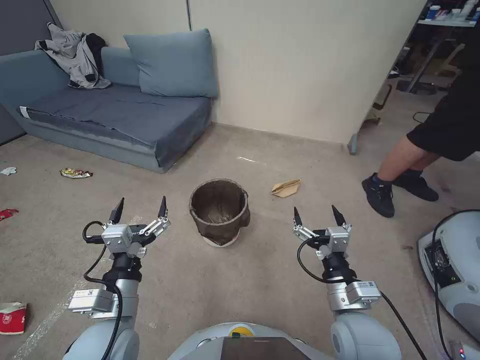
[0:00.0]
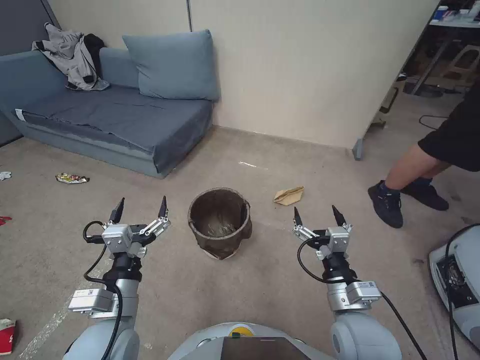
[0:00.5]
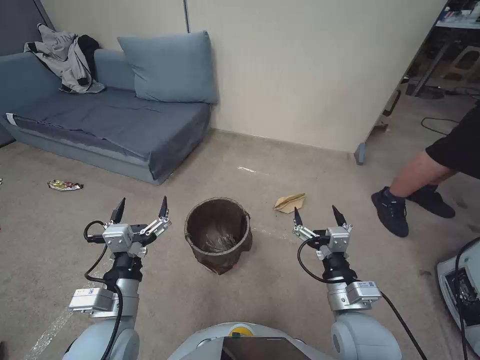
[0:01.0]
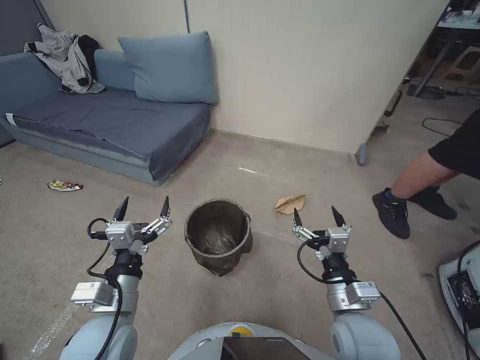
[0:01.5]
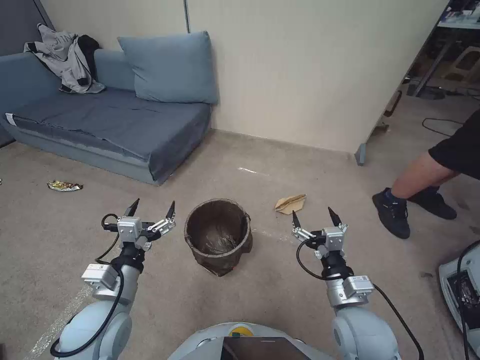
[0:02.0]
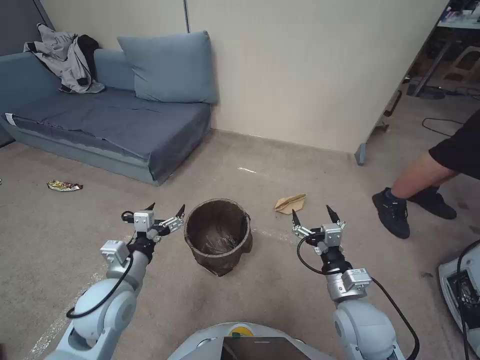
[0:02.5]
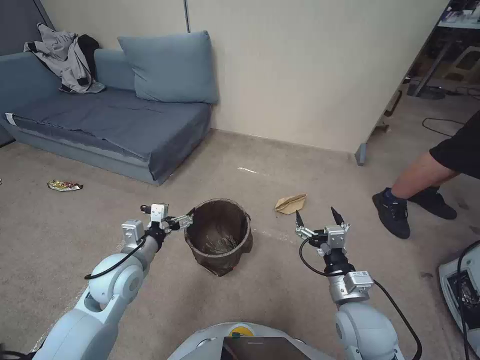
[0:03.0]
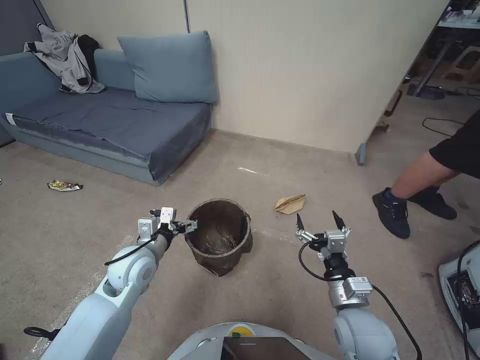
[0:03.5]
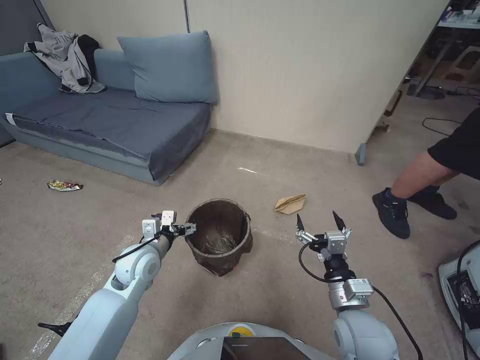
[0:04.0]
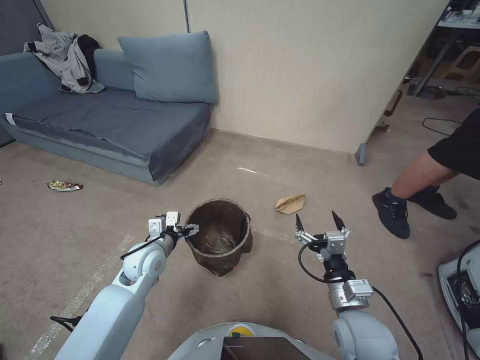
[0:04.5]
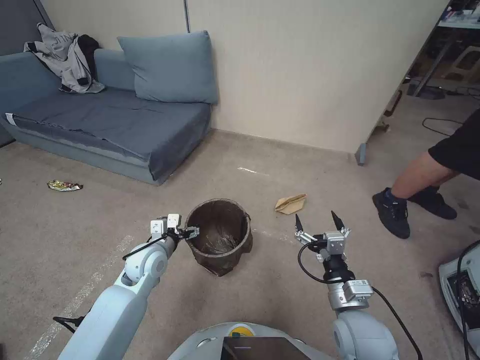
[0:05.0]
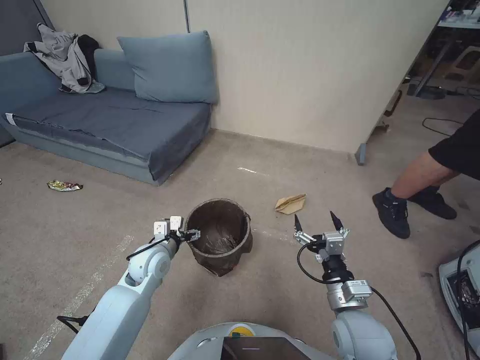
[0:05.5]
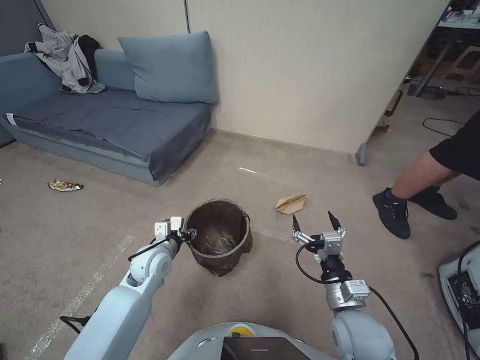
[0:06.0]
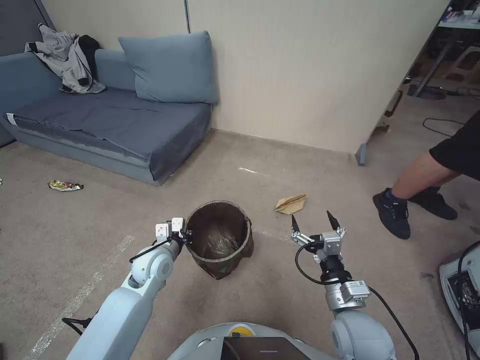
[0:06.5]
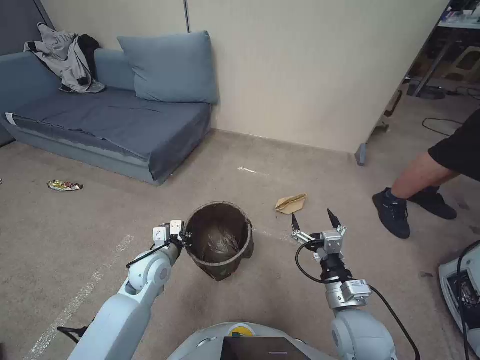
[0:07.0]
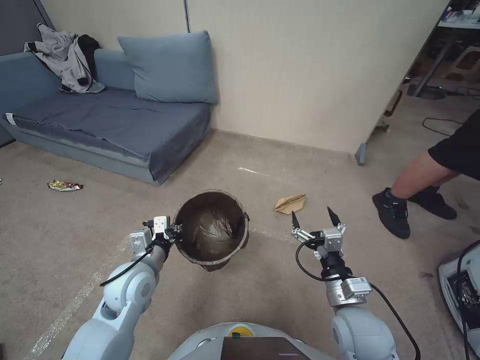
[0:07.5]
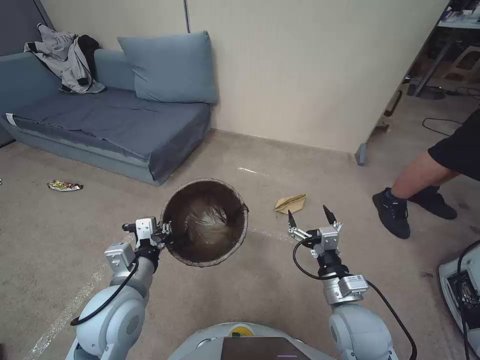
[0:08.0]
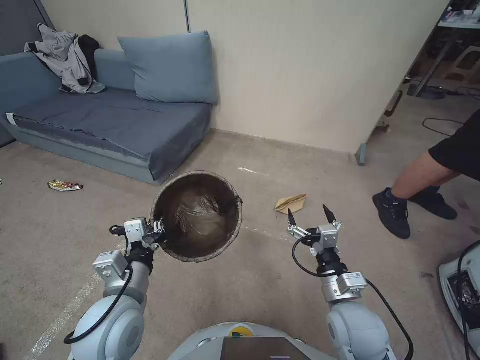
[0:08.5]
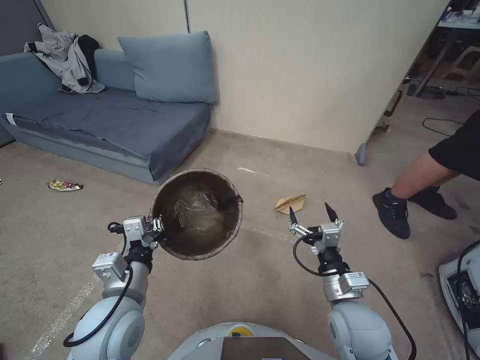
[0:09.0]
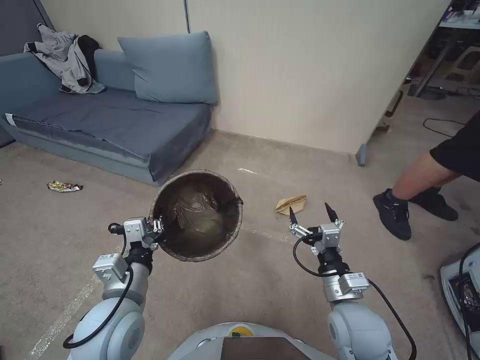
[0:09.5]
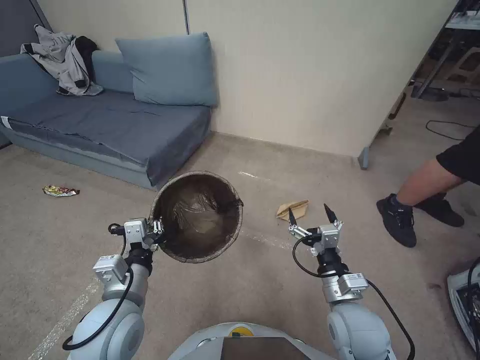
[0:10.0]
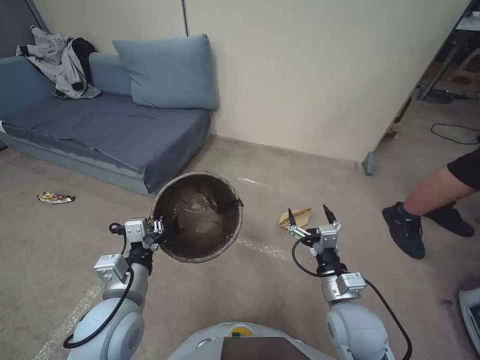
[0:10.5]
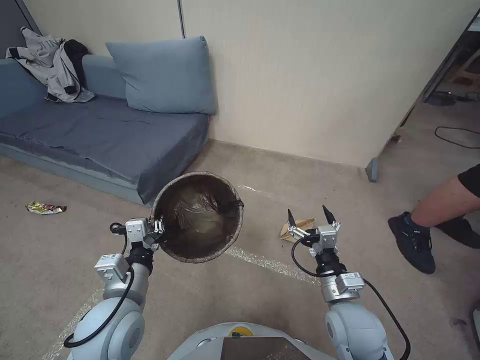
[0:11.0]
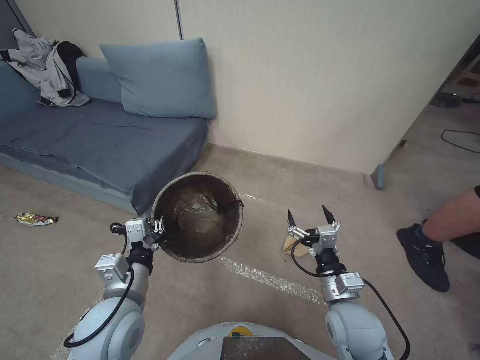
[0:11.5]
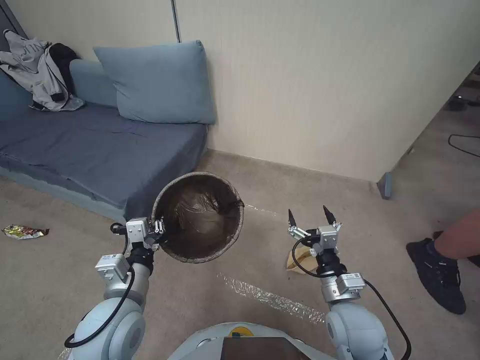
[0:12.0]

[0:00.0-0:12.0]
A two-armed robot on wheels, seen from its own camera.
Task of the whole recording: Pick up the trash bin, then pick up the garbage from the floor and place it into the trash bin.
0:02.0 to 0:04.0: The left gripper shifts roughly 15 cm forward and downward.
0:04.0 to 0:06.0: The left gripper closes up.
0:06.0 to 0:08.0: The left gripper shifts roughly 15 cm backward and upward, and closes.
0:08.0 to 0:10.0: The grippers move only a little.

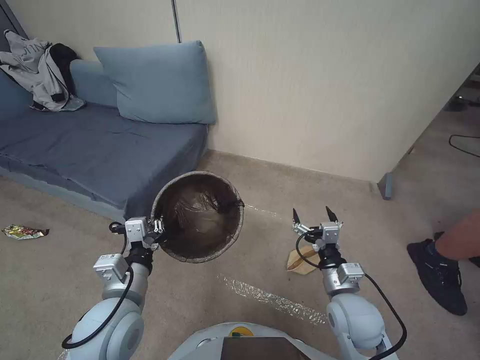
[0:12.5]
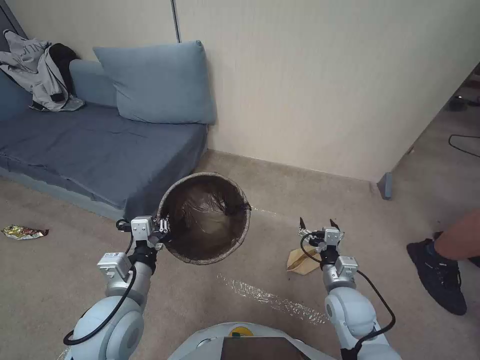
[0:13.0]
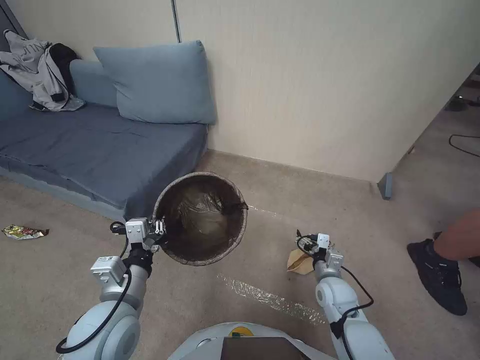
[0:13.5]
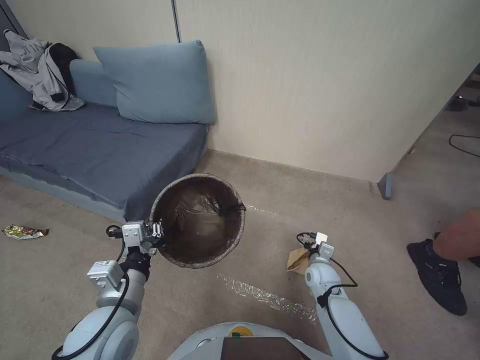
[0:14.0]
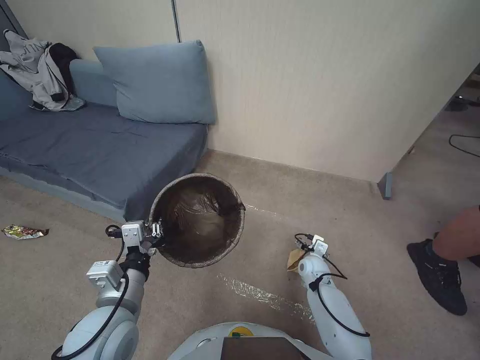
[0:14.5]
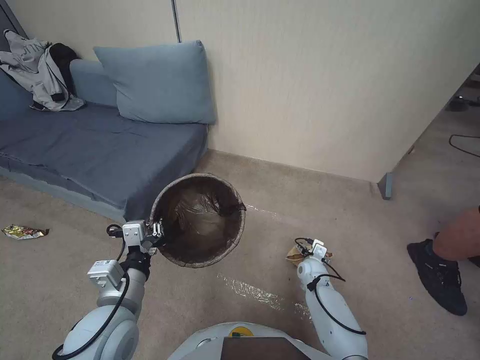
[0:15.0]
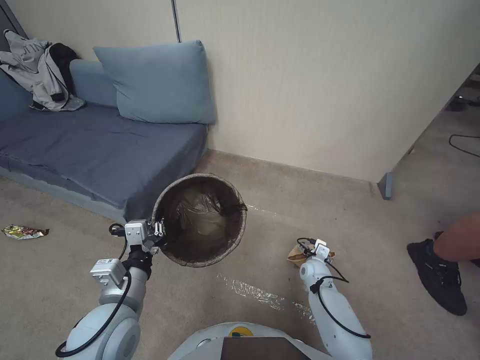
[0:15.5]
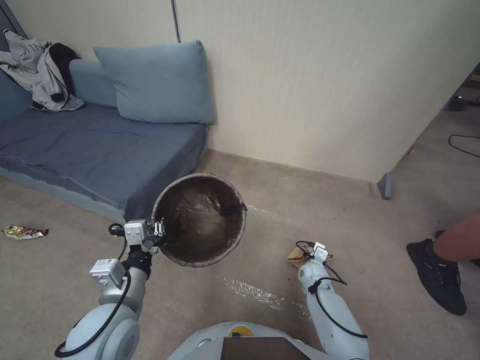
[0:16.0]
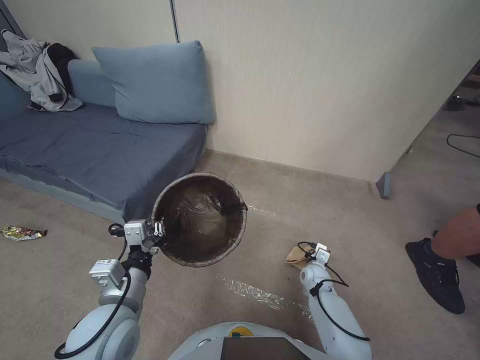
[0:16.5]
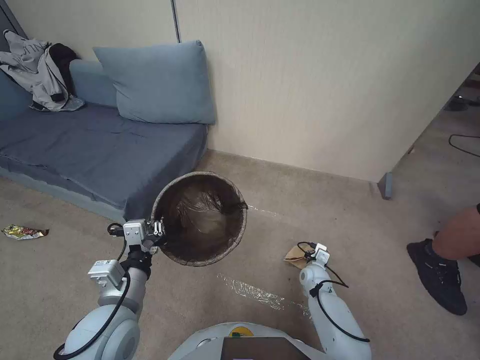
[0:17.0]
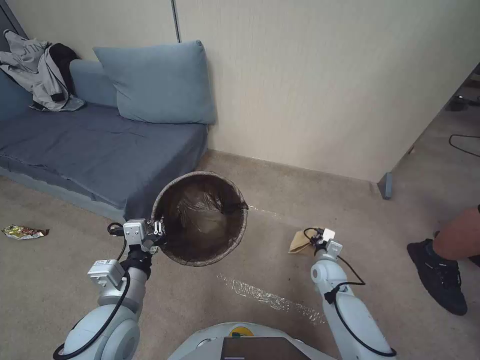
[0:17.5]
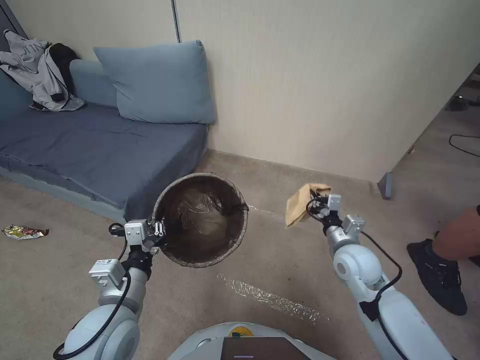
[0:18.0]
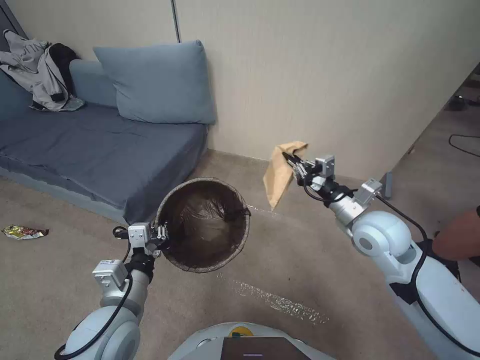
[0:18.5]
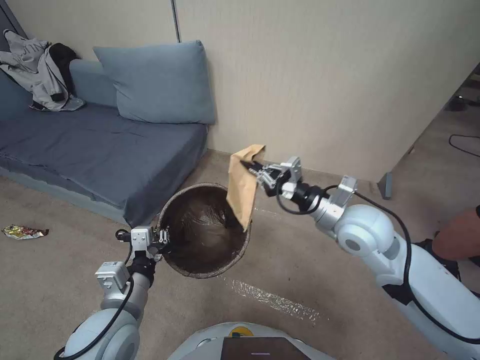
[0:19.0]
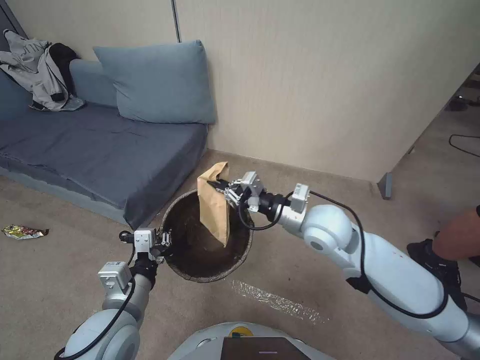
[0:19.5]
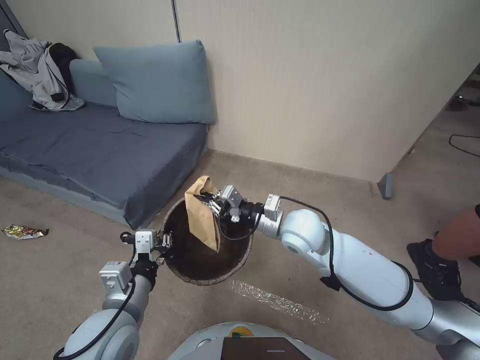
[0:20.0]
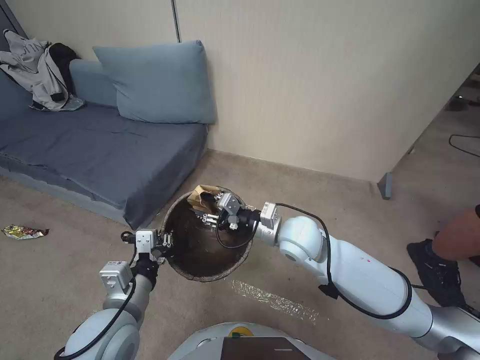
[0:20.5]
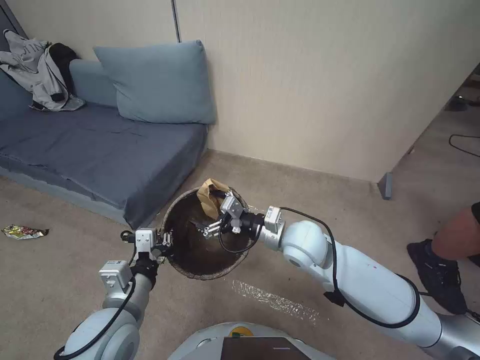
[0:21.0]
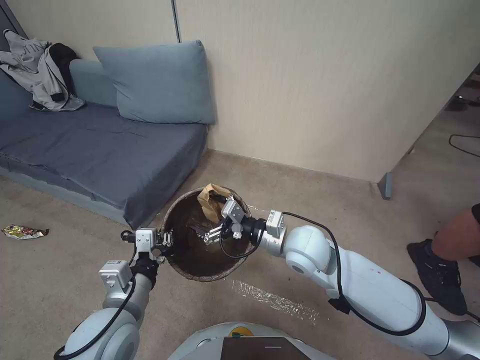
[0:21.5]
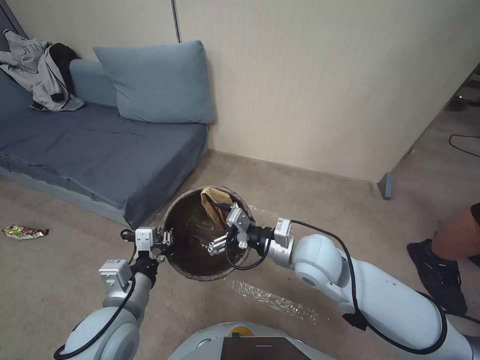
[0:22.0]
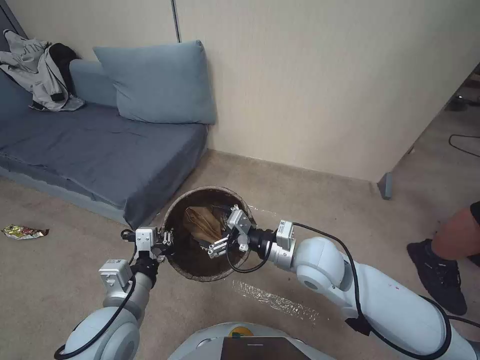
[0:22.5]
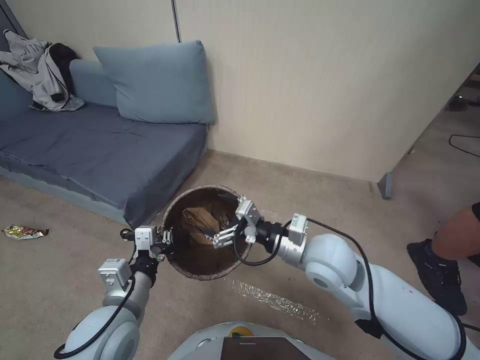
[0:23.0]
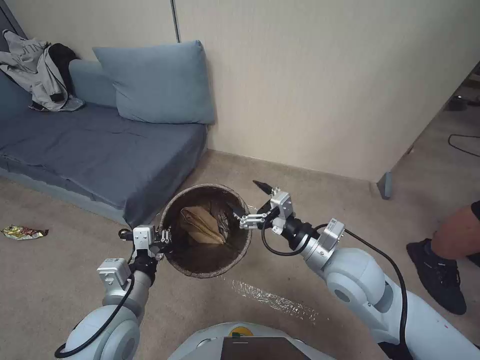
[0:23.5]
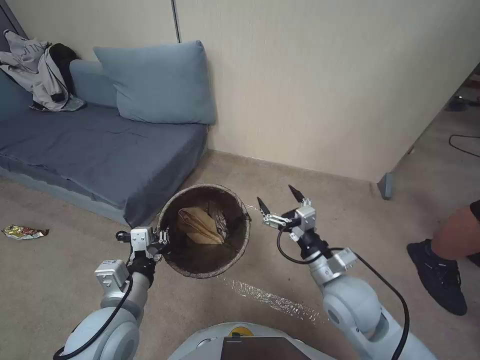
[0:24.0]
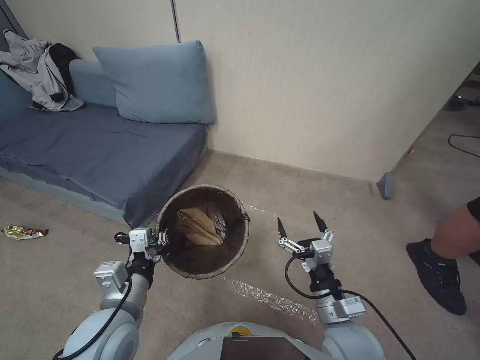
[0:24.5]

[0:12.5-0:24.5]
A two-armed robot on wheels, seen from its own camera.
Task of the whole recording: Pick up the trash bin, then pick up the garbage from the floor and place it into the trash bin.
0:12.5 to 0:14.5: The right gripper is displaced downward and forward by about 25 cm.
0:14.5 to 0:16.5: The right gripper closes.
0:16.5 to 0:18.5: The right gripper goes approximately 35 cm upward.
0:18.5 to 0:20.5: The right gripper moves to the left, some 15 cm.
0:20.5 to 0:22.5: The right gripper goes about 5 cm backward, and opens.
0:22.5 to 0:24.5: The right gripper goes about 15 cm backward, downward and to the right.

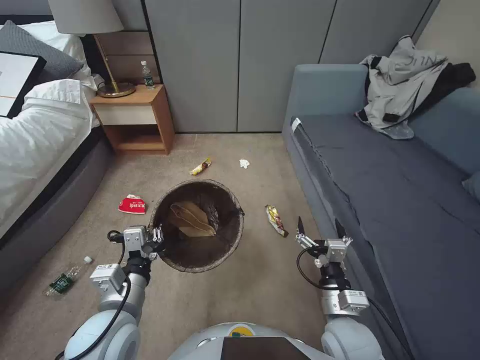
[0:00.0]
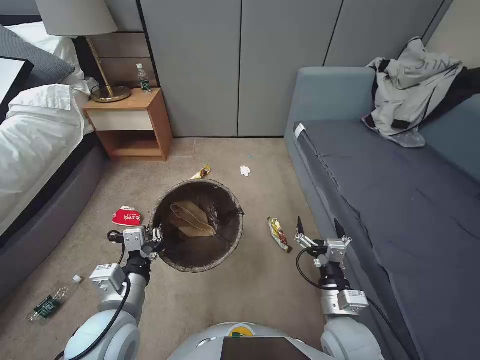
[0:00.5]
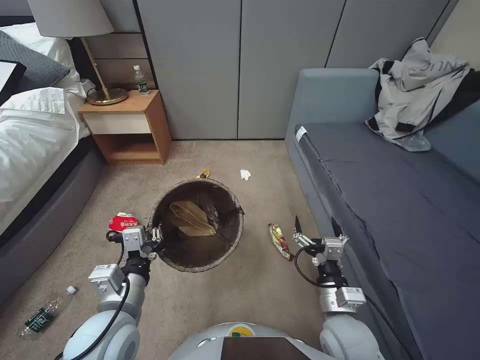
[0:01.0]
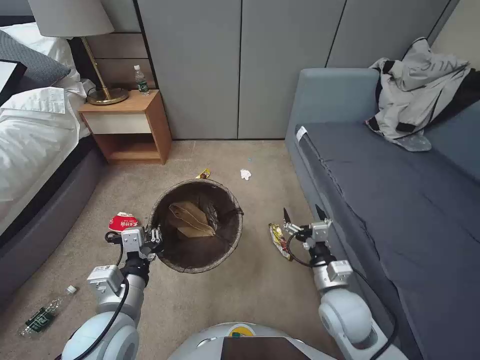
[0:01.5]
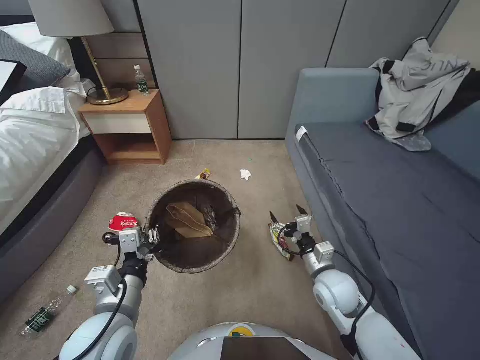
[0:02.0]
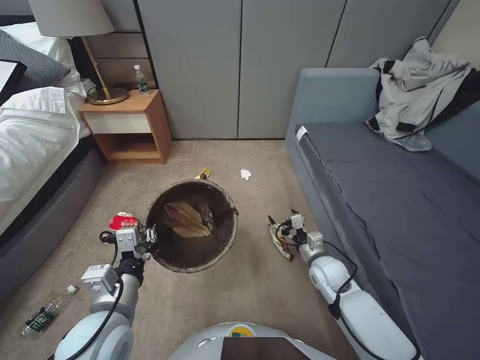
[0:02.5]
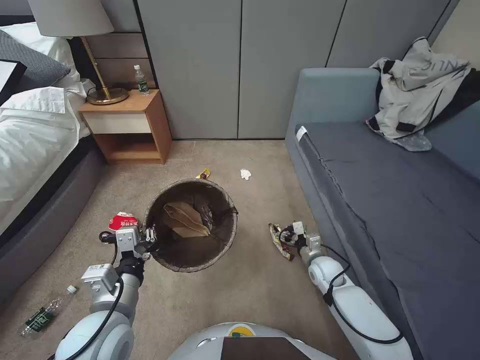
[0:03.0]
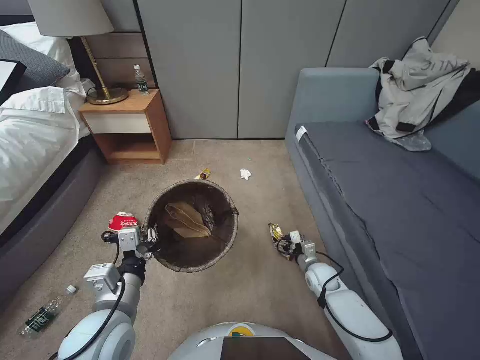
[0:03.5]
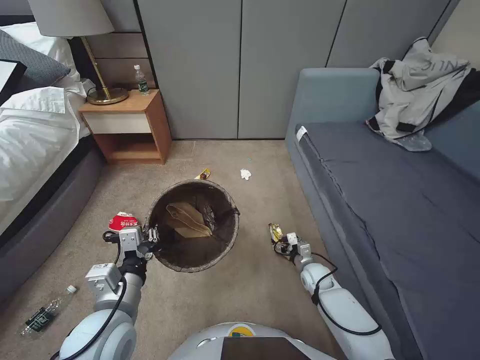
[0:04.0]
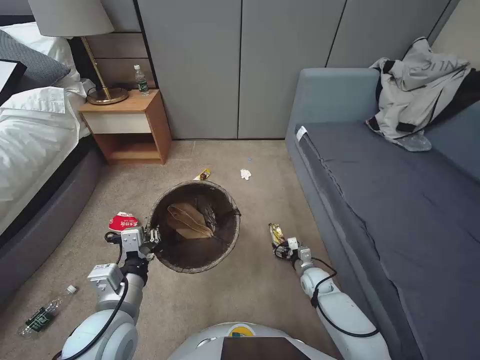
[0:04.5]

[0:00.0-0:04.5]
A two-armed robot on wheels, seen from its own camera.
Task of the whole recording: Pick up the trash bin, then pick up the garbage from the floor and place it into the trash bin.
0:00.0 to 0:02.0: The right gripper is displaced forward by about 10 cm.
0:02.0 to 0:04.5: The right gripper heads downward and forward, covering about 20 cm.
